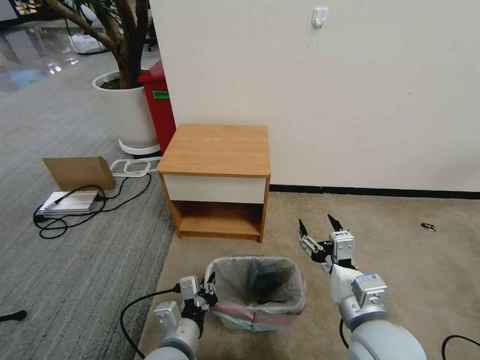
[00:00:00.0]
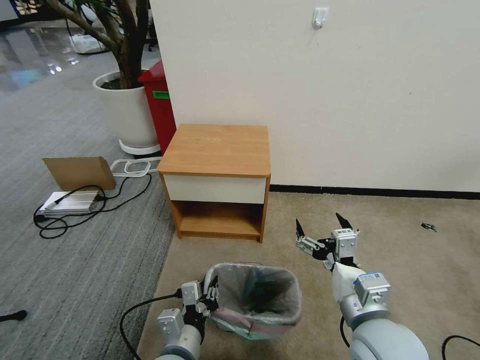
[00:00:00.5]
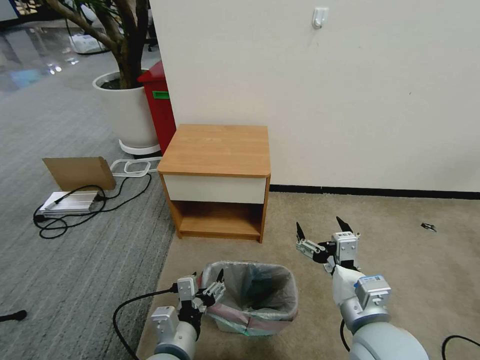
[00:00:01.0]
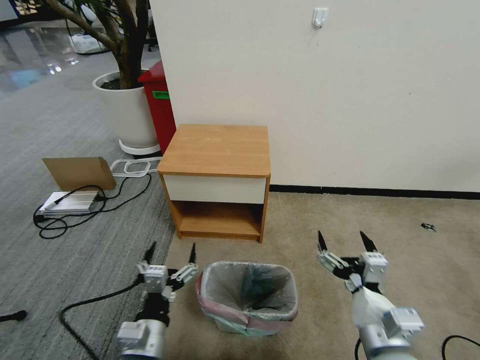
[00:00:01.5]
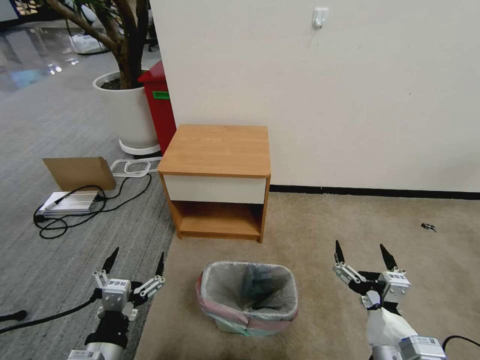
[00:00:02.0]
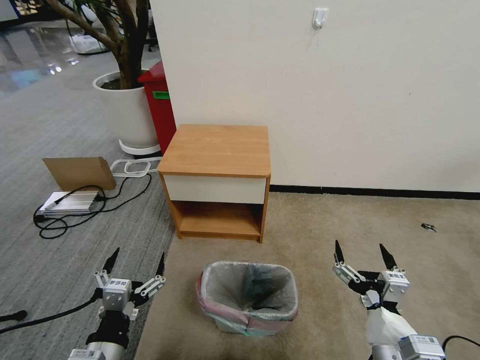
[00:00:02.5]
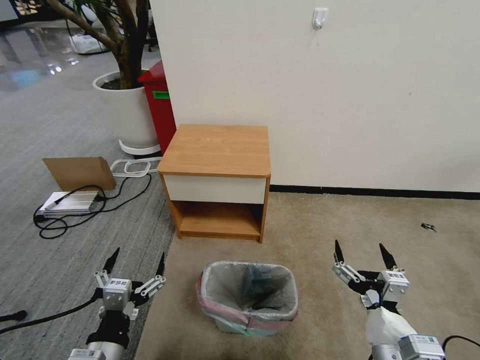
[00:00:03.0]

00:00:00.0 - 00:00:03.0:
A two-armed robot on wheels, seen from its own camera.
Task of the whole recording: Pick up the garbage bag from the table and place it over the trash can.
00:00:00.0 - 00:00:01.5: The left gripper opens.
00:00:01.5 - 00:00:03.0: The left gripper is displaced to the left by approximately 5 cm.
